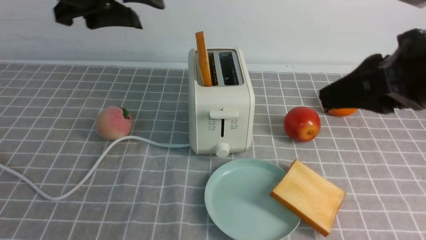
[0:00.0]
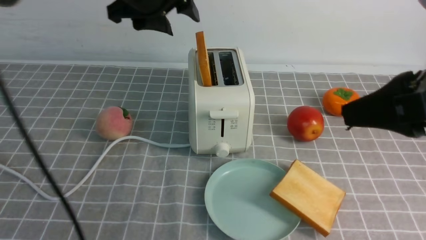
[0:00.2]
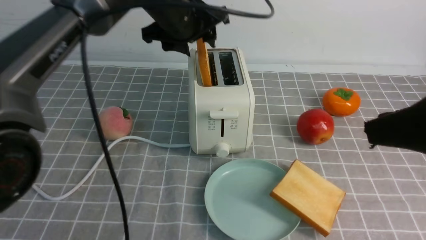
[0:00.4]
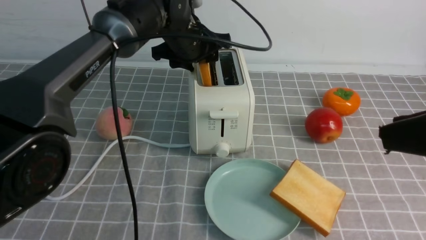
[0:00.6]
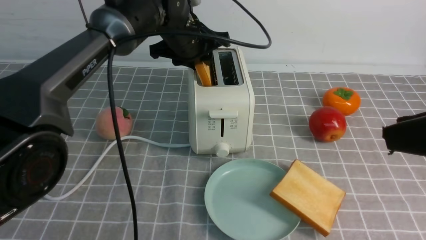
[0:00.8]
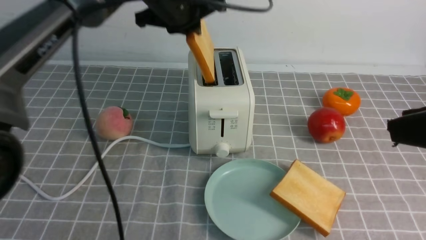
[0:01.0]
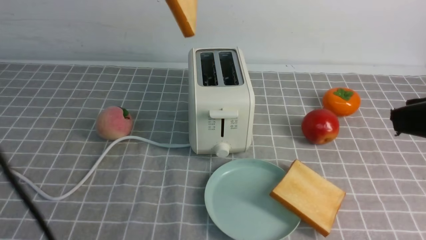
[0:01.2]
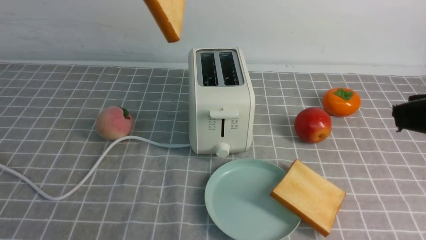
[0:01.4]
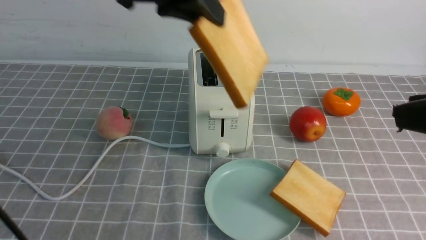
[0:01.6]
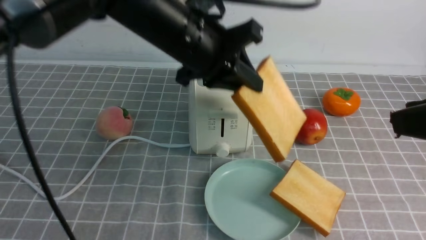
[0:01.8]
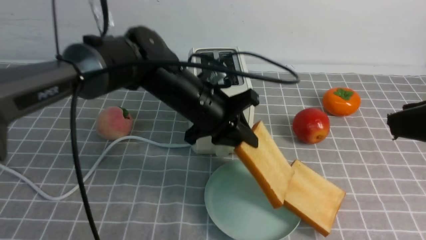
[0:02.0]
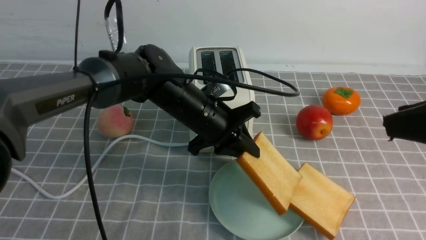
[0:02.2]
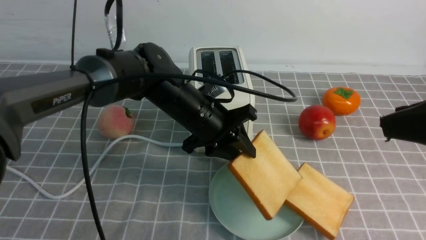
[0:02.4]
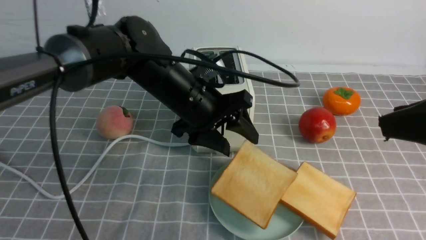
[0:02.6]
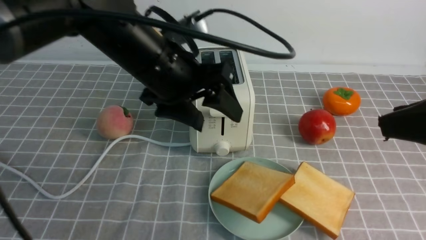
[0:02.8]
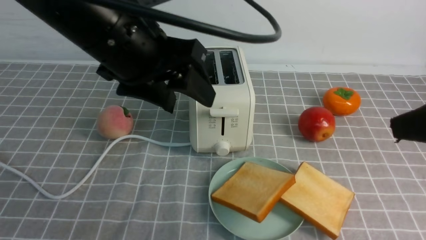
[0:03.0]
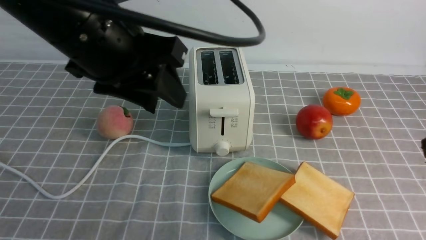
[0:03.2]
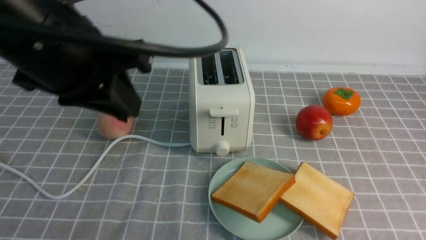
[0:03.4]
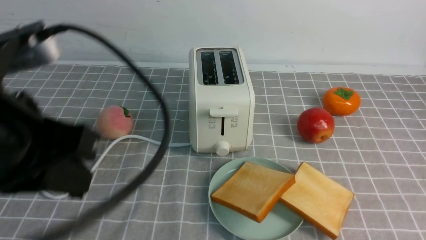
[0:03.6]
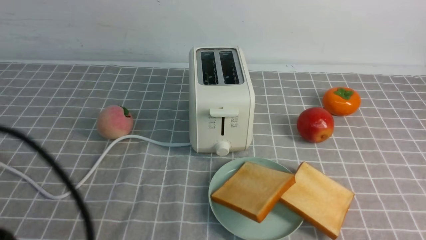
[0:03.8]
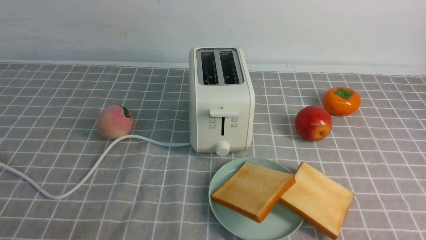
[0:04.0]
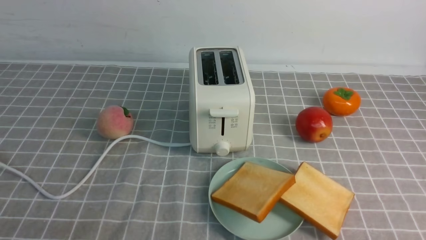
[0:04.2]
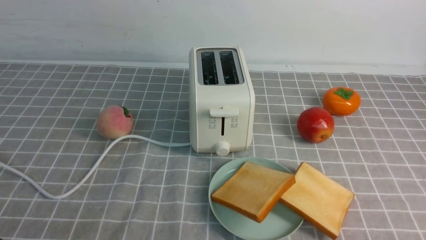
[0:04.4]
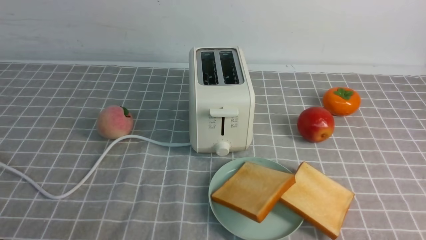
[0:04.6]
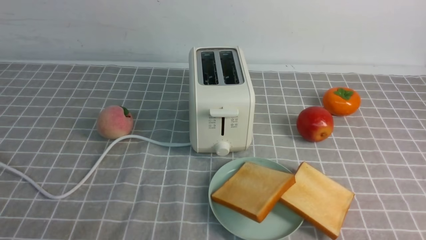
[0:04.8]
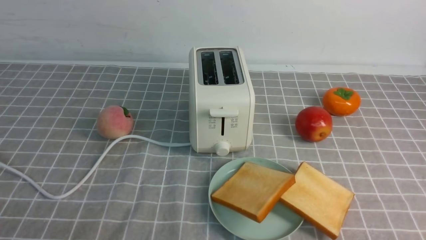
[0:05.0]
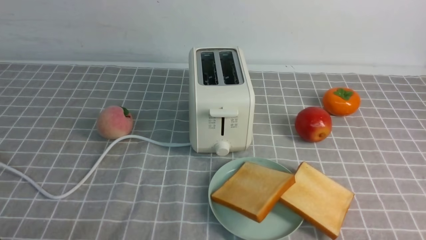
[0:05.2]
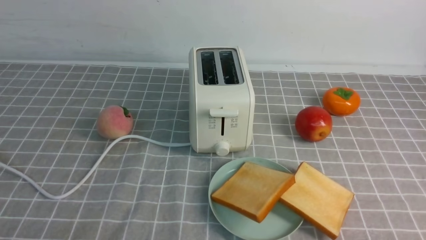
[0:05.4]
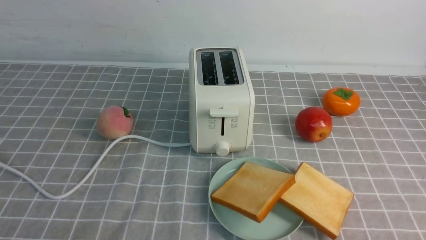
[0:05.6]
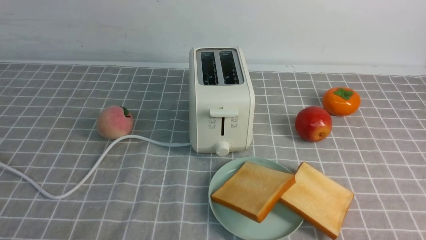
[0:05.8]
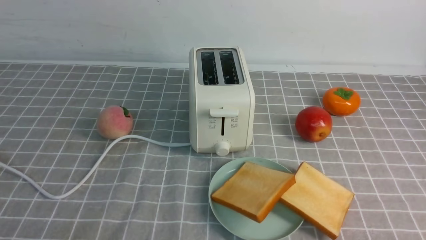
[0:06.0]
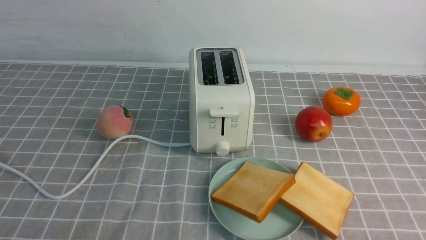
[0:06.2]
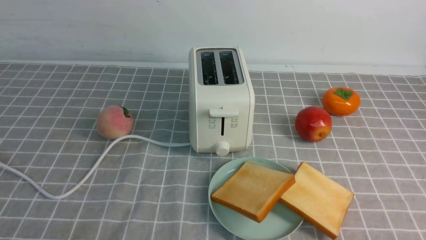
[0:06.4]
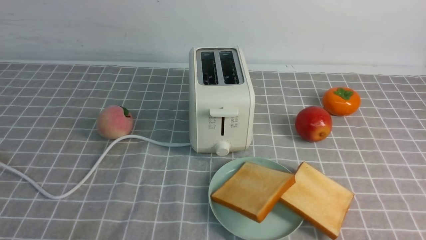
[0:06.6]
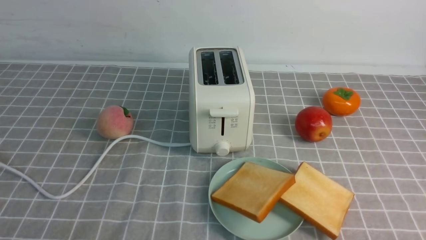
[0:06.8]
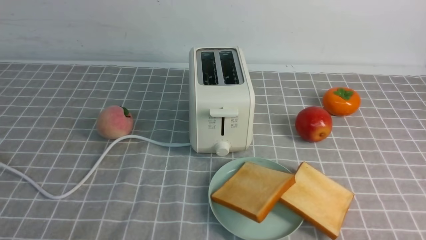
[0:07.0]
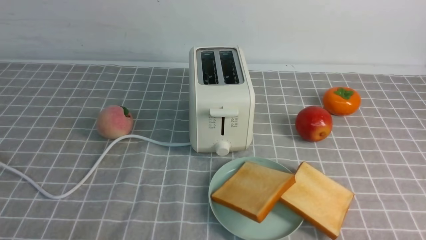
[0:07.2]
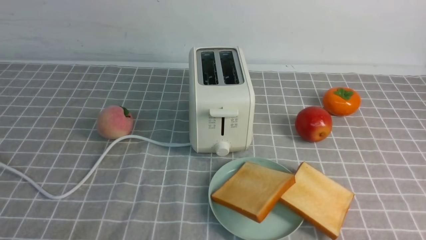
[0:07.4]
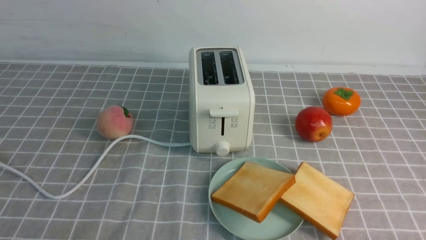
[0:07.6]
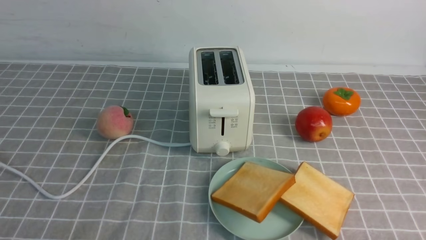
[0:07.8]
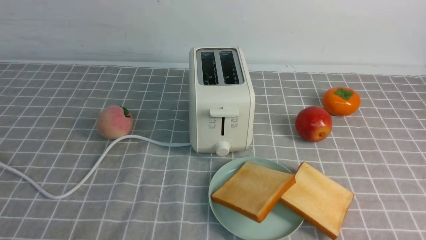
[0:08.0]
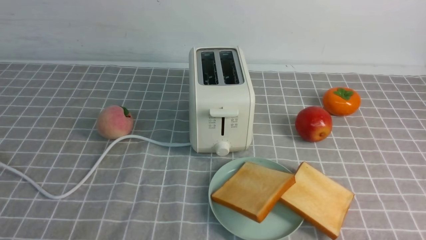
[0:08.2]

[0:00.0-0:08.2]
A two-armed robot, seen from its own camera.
Task of the whole recording: take toasted bread from bread machine on grey coffee table place on plate.
Step, 0:00.0 to 0:01.0: use the left arm to take out a slice of bread.
Step, 0:01.2 to 0:02.6: use the left arm to put a slice of bread into the empty plate.
0:00.0 to 0:01.6: The left gripper shifts approximately 10 cm to the right, reaches some 10 cm downward, then returns, and closes its fingers. Meanwhile the right gripper heads backward, covering some 10 cm.
0:01.6 to 0:03.2: The left gripper goes about 5 cm backward, moves some 25 cm downward and comes back, and opens up.
0:03.2 to 0:05.0: The right gripper moves downward and backward, approximately 15 cm, and closes up, while the left gripper moves backward, to the left and downward, approximately 30 cm, and closes.
